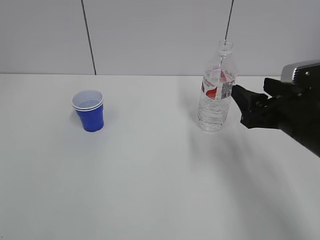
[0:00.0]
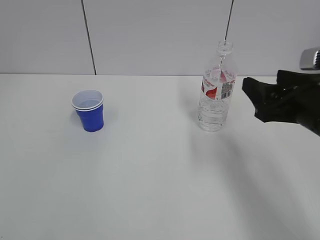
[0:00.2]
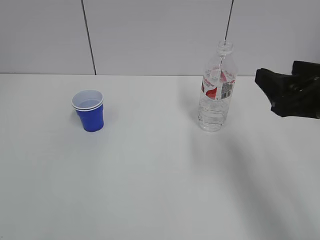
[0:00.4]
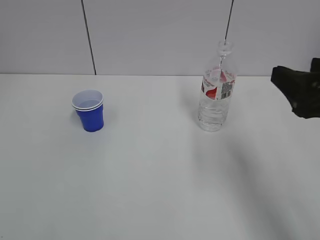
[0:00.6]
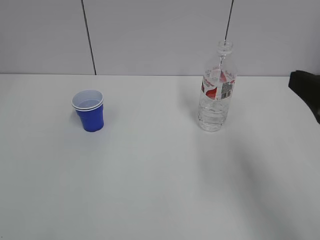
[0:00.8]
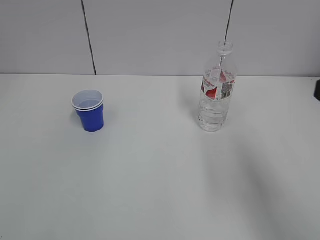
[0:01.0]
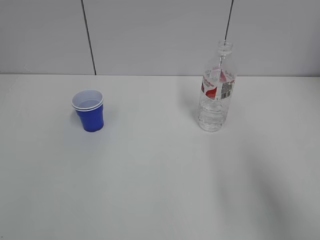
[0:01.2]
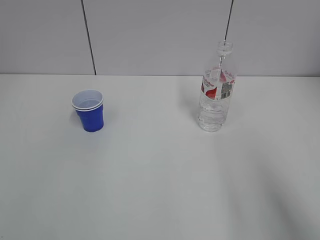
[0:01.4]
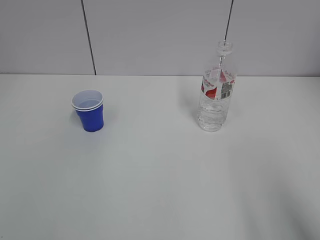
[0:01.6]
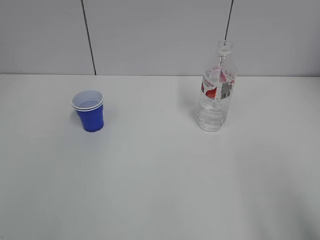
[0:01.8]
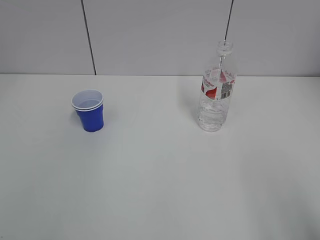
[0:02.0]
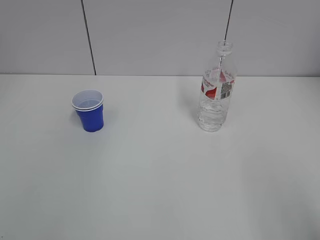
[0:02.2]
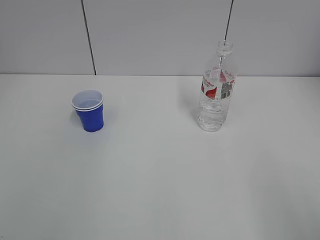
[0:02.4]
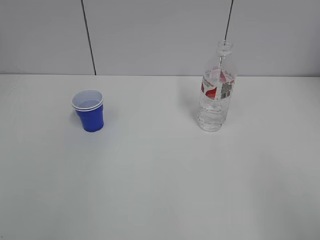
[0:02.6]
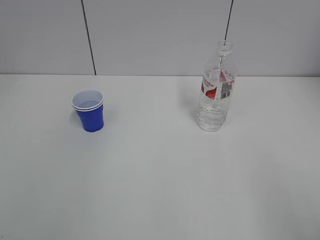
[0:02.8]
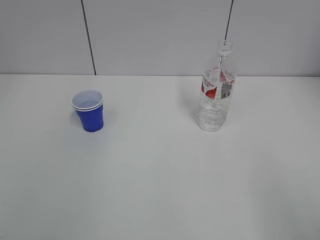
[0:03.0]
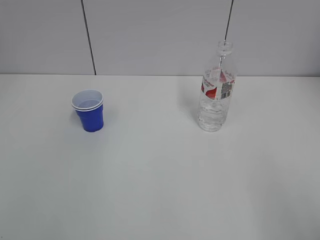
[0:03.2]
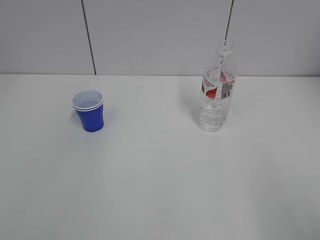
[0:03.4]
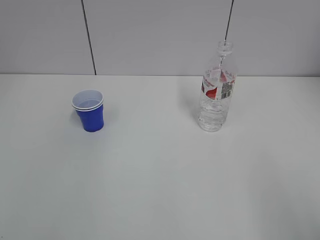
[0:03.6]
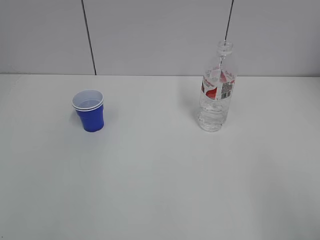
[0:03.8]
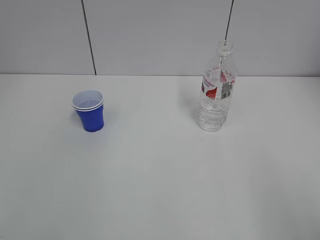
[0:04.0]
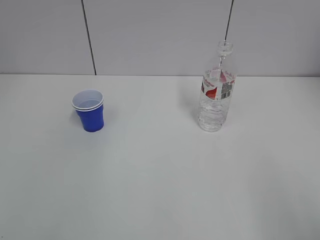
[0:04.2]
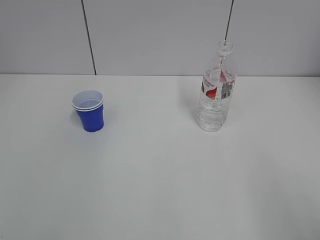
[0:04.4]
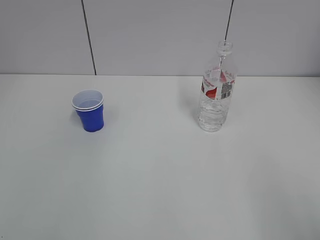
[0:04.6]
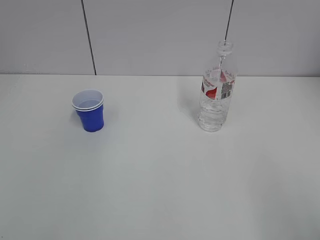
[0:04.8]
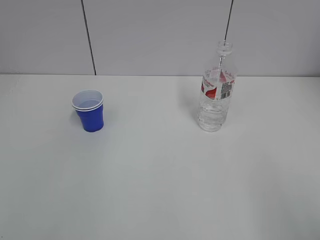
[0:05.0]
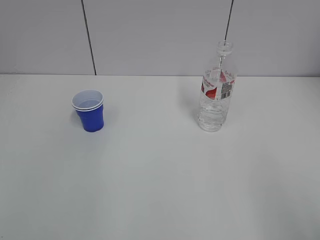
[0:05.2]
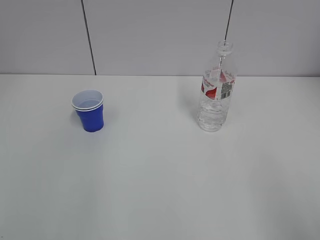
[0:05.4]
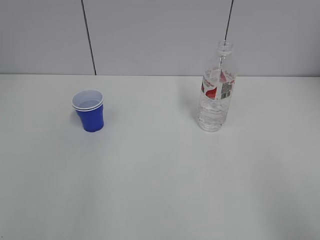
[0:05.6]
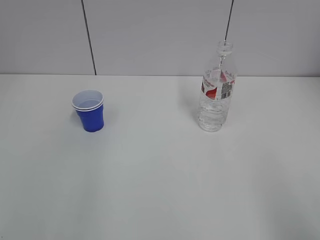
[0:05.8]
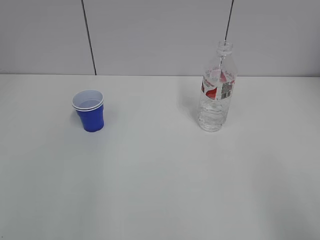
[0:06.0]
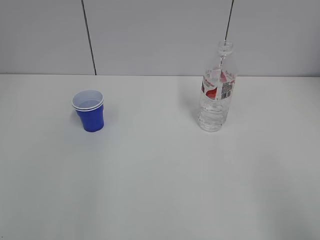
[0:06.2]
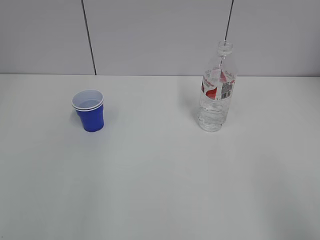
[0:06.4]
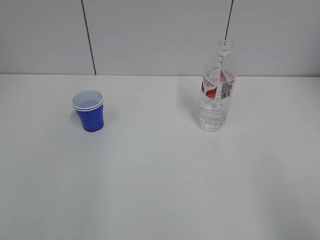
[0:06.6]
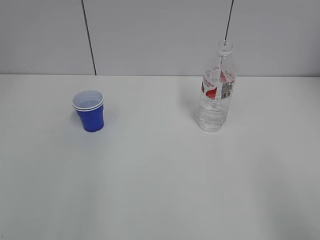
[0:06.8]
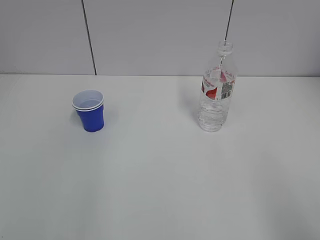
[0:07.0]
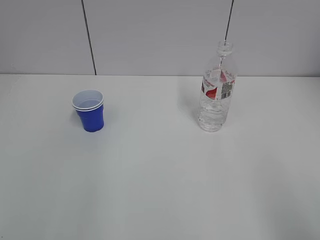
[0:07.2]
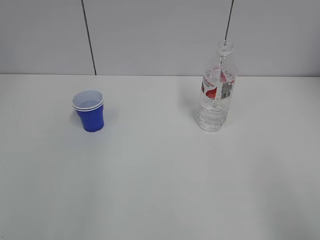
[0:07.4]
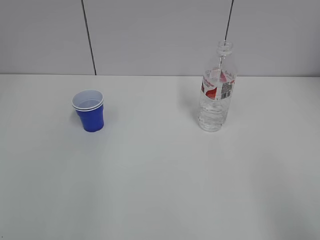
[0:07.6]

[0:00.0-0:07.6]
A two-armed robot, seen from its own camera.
0:00.0 to 0:01.6: The right gripper goes roughly 25 cm backward and upward.
0:03.0 to 0:04.6: Both grippers stay put.
0:06.0 to 0:07.6: Both grippers stay about where they are.
